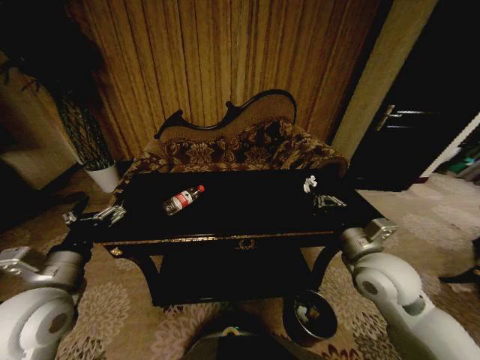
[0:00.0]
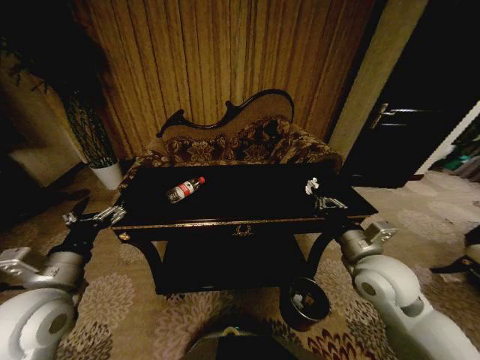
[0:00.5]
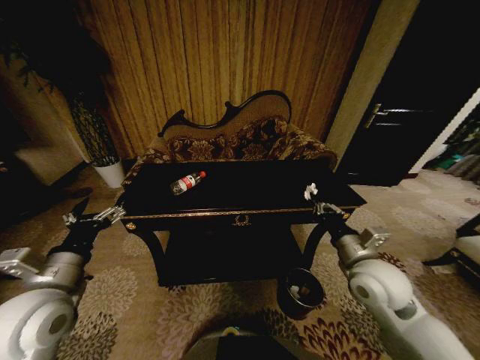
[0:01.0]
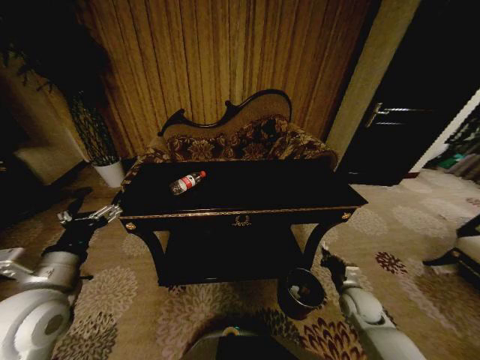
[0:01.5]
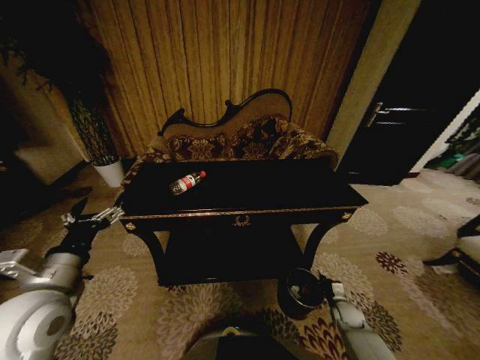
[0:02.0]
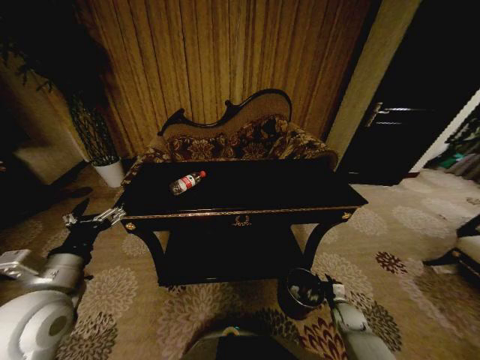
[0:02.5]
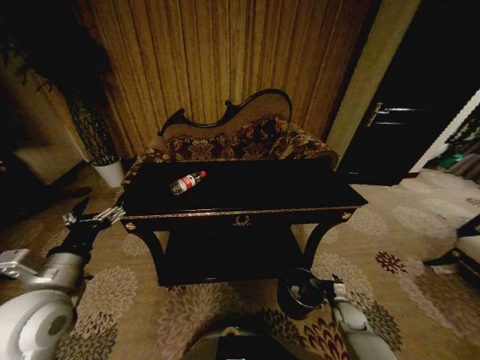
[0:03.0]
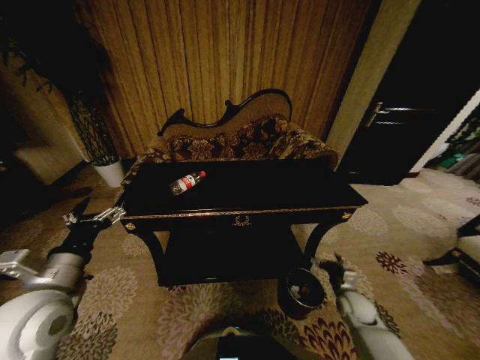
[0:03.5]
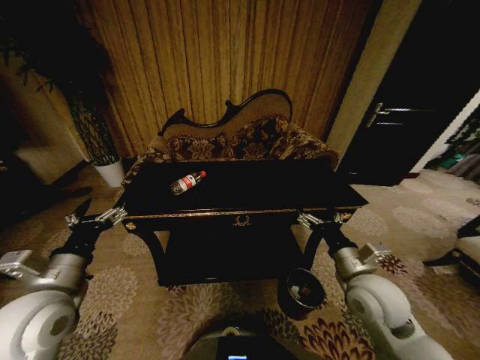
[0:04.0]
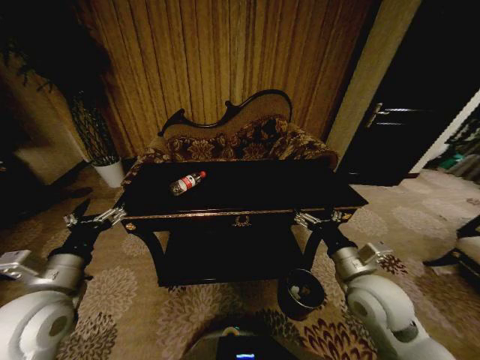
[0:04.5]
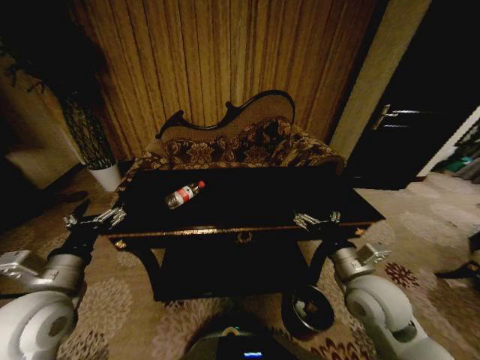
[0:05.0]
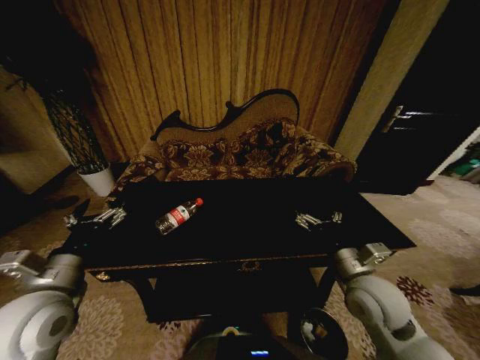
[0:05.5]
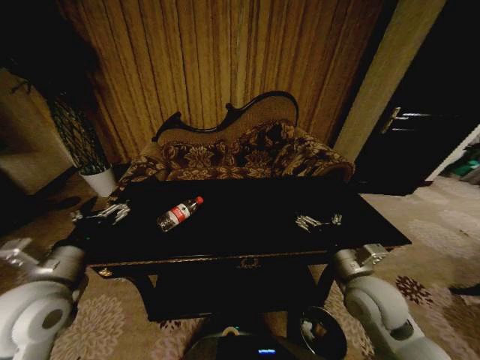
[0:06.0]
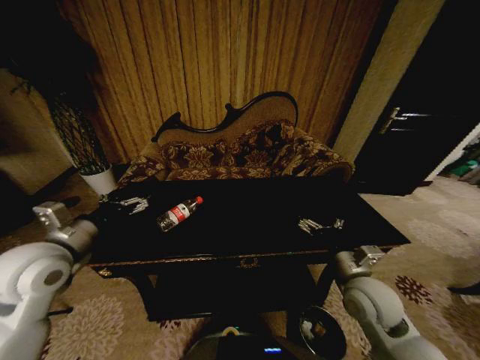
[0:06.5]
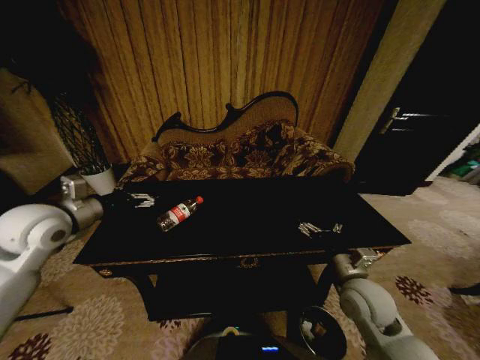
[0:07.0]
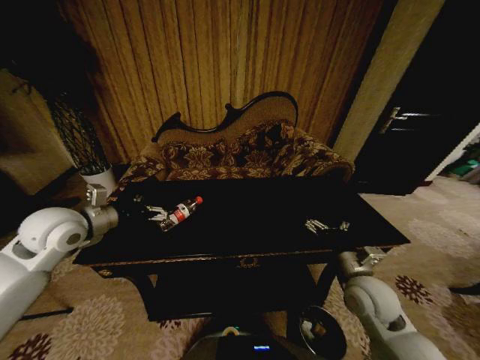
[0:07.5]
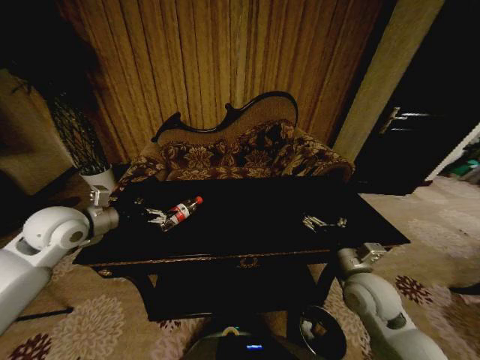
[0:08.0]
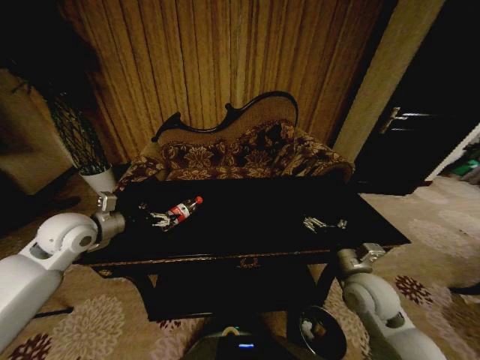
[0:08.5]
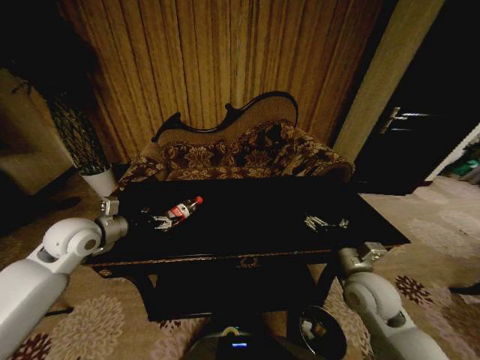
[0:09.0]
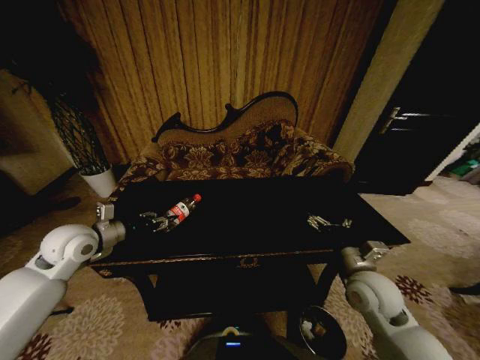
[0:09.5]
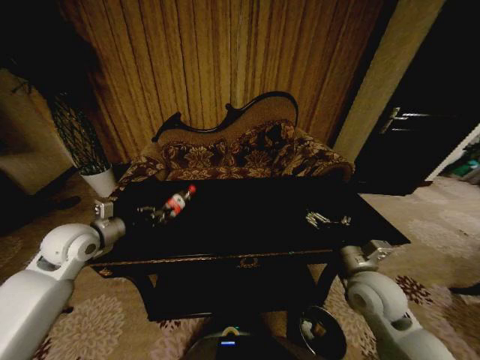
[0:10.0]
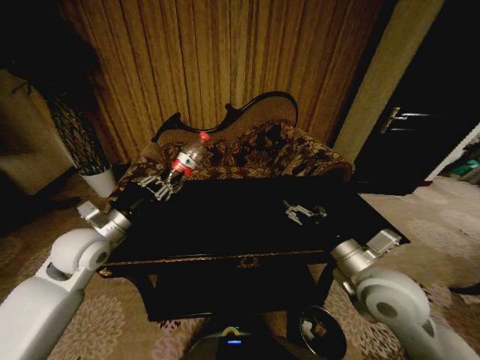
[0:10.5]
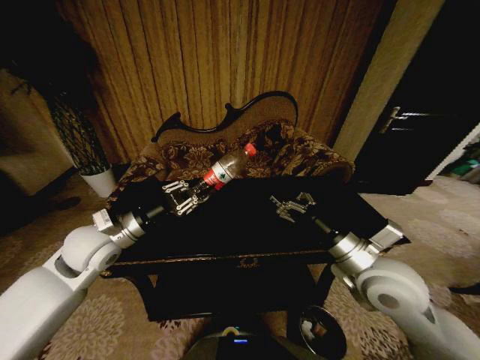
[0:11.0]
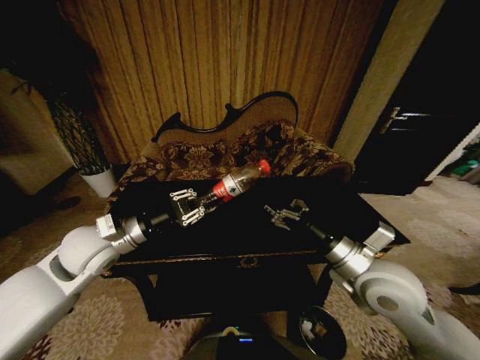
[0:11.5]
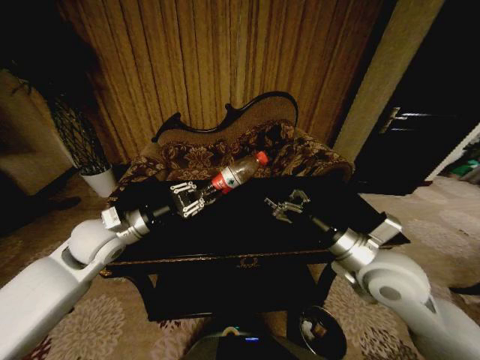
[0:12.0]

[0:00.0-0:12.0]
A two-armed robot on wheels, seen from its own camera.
Task of the whole recording: Move to the front of the table and place the trash on the table into the trash bin.
0:00.0 to 0:02.0: The right gripper goes about 35 cm downward.
0:02.0 to 0:04.0: The right gripper moves upward, some 30 cm, and opens up.
0:06.0 to 0:08.0: The left gripper goes approximately 15 cm forward.
0:08.0 to 0:10.0: The left gripper closes its fingers.
0:10.0 to 0:12.0: The left gripper goes approximately 10 cm to the right. The right gripper heads upward, covering roughly 10 cm.

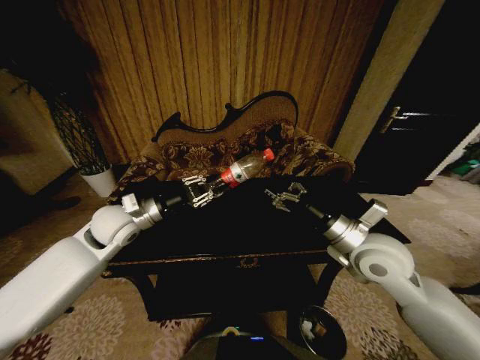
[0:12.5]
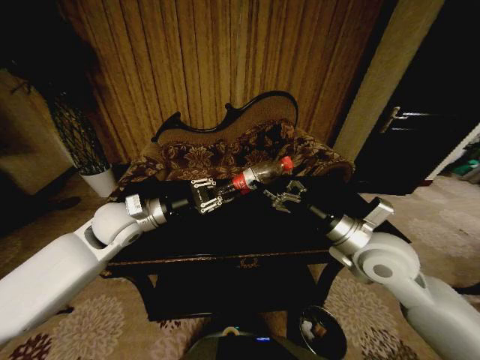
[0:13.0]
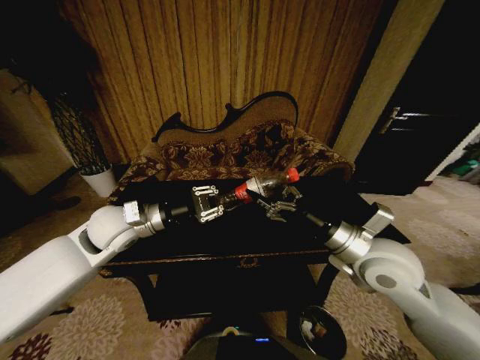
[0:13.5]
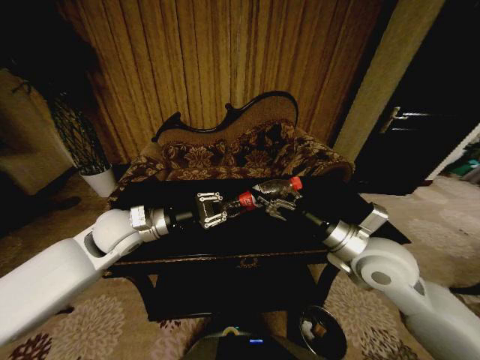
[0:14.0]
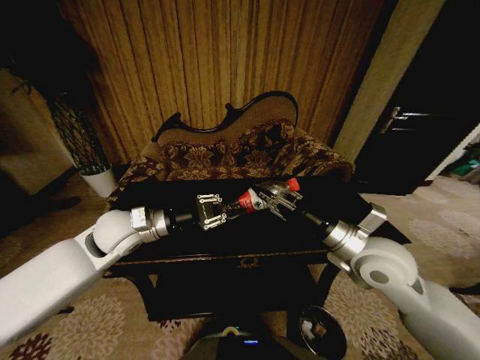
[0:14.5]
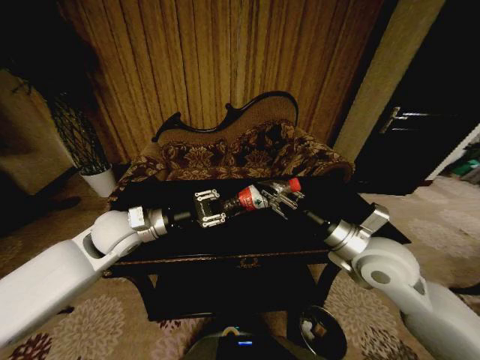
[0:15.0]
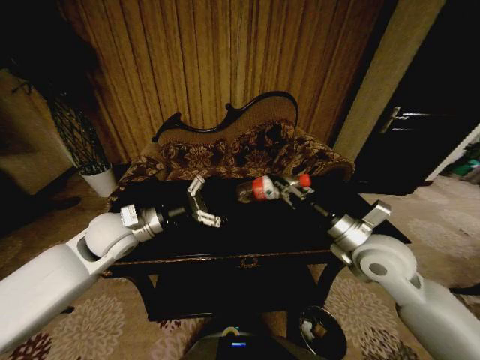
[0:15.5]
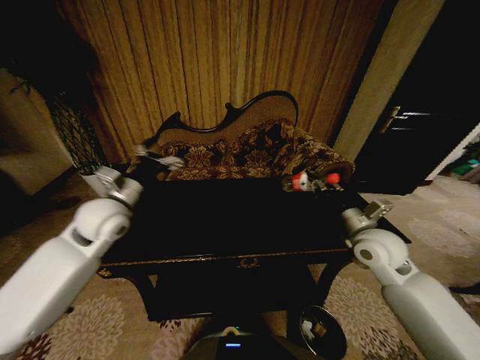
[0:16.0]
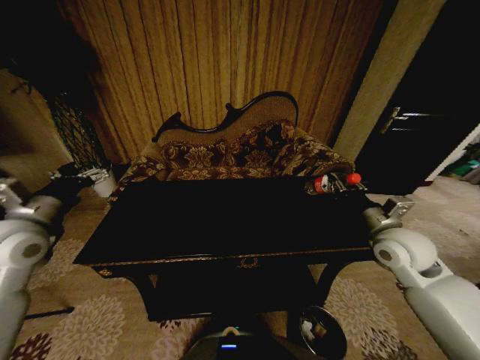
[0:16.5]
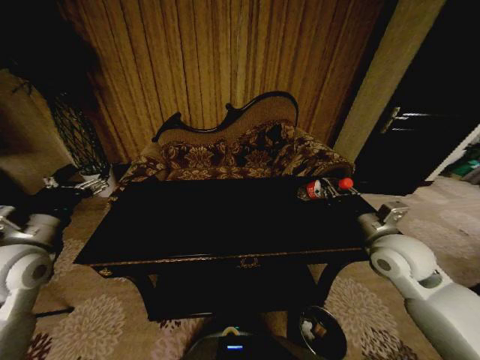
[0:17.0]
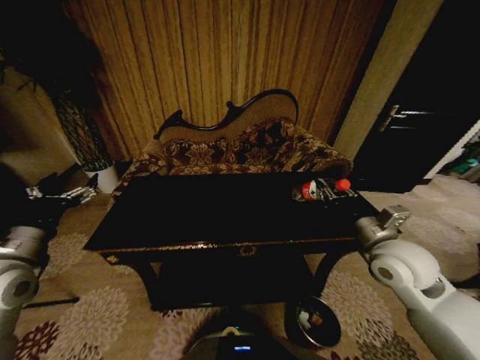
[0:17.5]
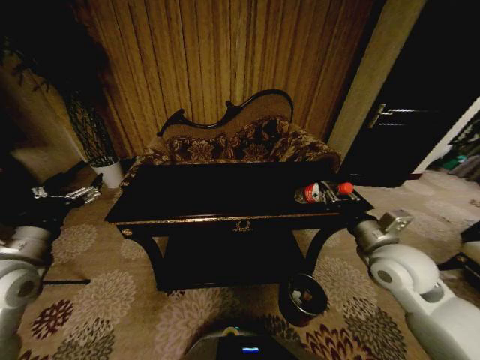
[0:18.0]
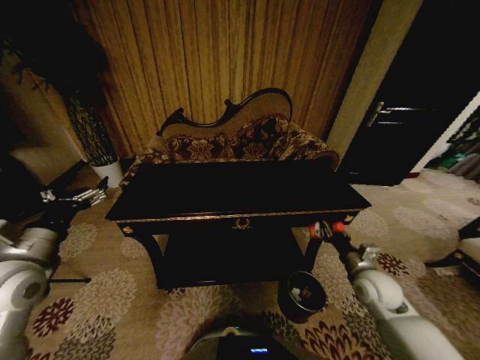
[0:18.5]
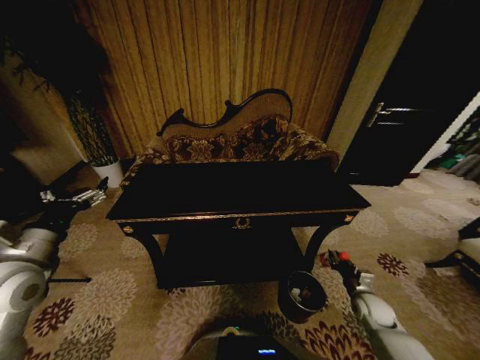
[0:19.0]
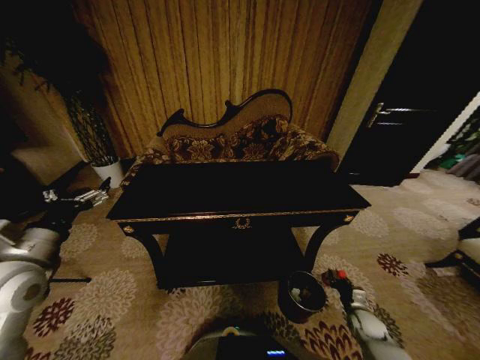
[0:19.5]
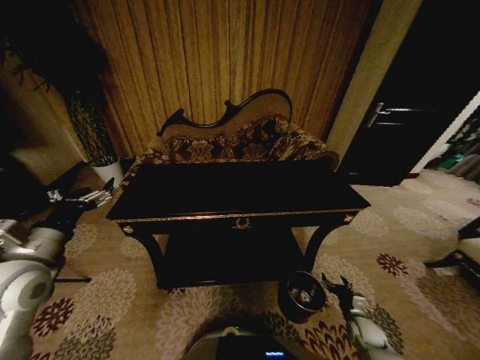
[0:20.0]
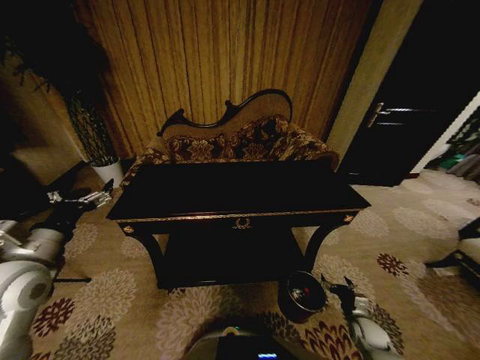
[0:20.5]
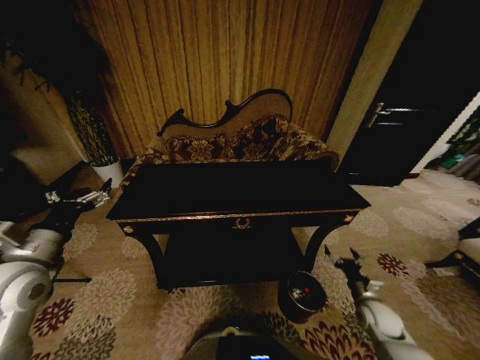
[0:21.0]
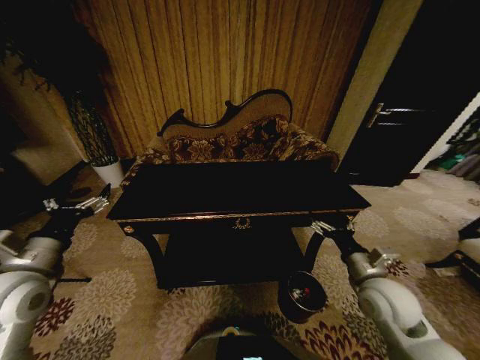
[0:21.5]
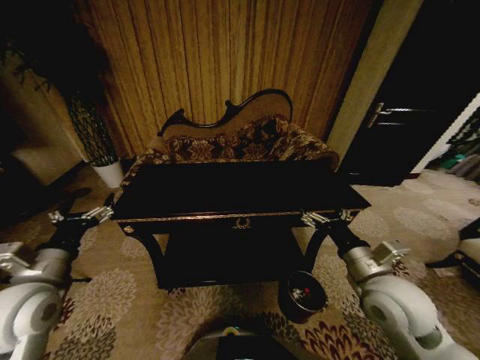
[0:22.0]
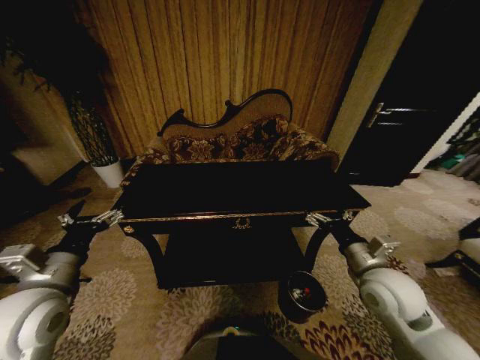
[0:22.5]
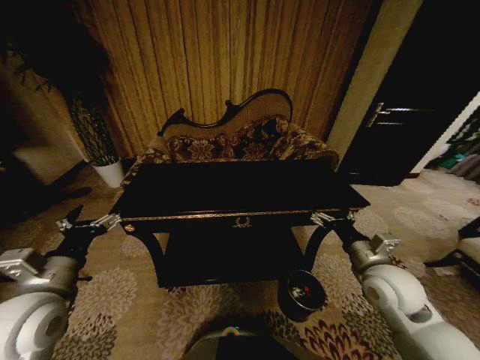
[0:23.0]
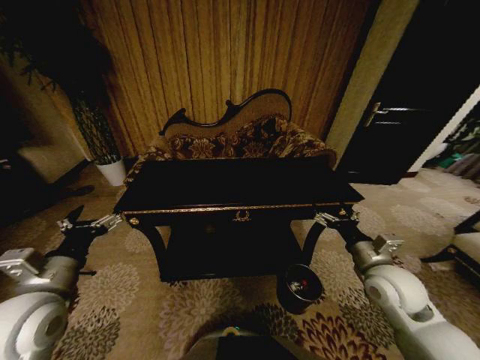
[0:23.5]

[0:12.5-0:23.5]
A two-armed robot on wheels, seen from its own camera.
Task of the whole recording: Move to the front of the table and place the trash on the table into the trash bin.
0:12.5 to 0:14.5: The right gripper closes.
0:14.5 to 0:16.0: The right gripper is displaced to the right and forward by about 10 cm; the left gripper opens its fingers.
0:16.0 to 0:18.0: The right gripper is displaced backward by some 5 cm. Meanwhile the left gripper travels backward and to the left by approximately 15 cm.
0:18.0 to 0:20.0: The right gripper shifts some 35 cm downward, and opens up.
0:20.0 to 0:21.5: The right gripper travels upward by about 30 cm.
0:21.5 to 0:23.5: The left gripper moves approximately 5 cm.

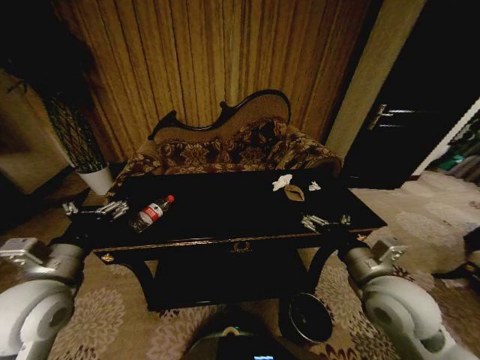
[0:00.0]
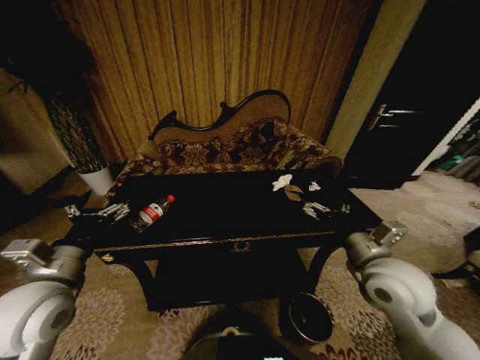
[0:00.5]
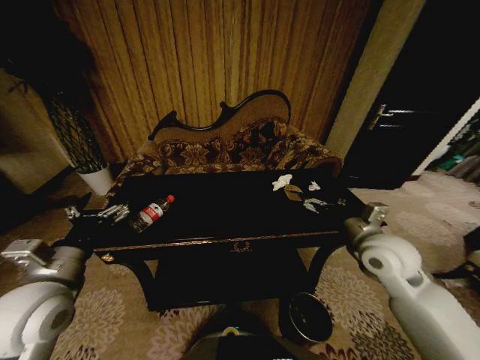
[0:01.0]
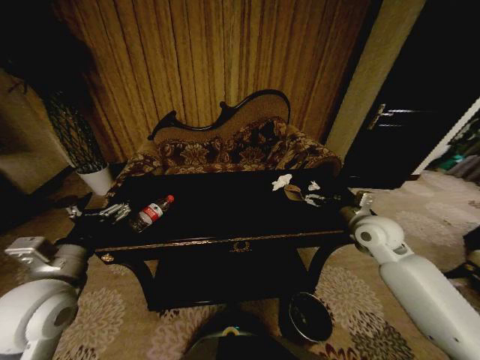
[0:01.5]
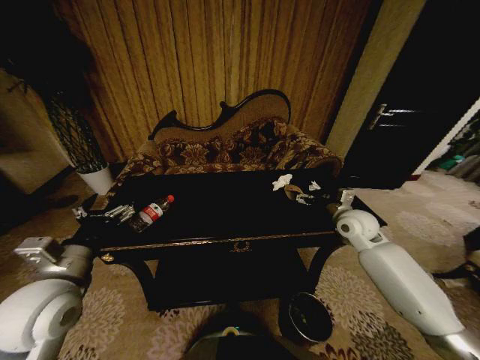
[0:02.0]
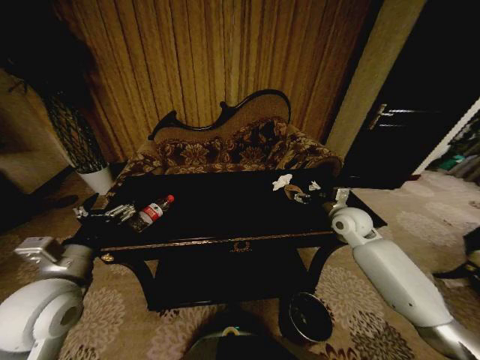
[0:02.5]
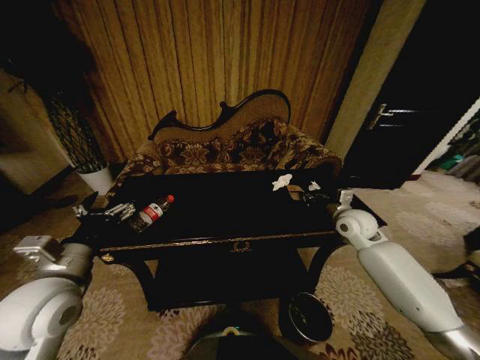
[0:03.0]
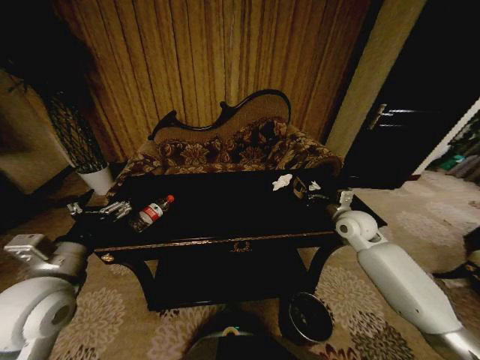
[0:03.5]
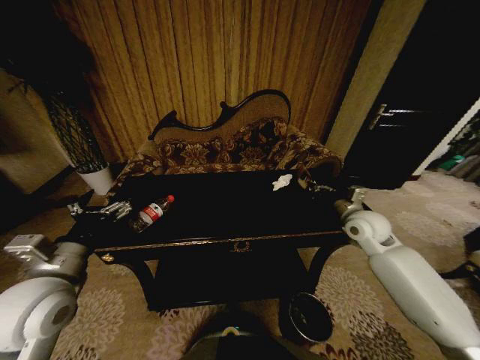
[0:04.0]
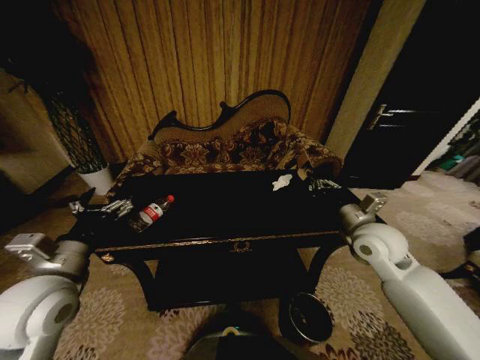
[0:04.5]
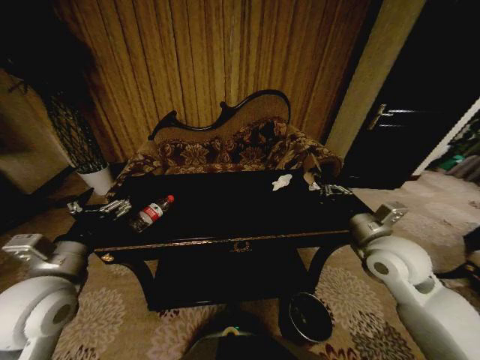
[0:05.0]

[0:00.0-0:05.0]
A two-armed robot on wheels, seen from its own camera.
Task of the whole recording: Move to the front of the table and place the trash on the table into the trash bin.
0:00.0 to 0:02.5: The right gripper goes some 20 cm forward.
0:02.5 to 0:05.0: The right gripper heads backward and upward, covering roughly 15 cm, and closes its fingers.
